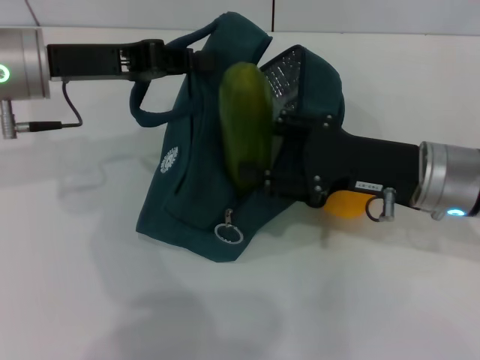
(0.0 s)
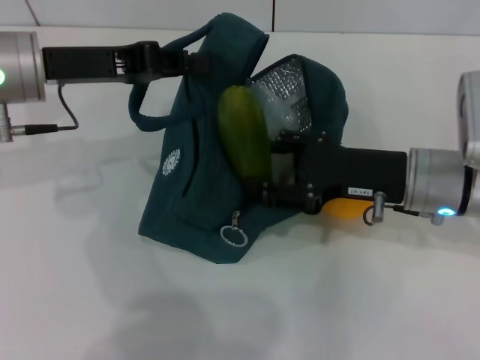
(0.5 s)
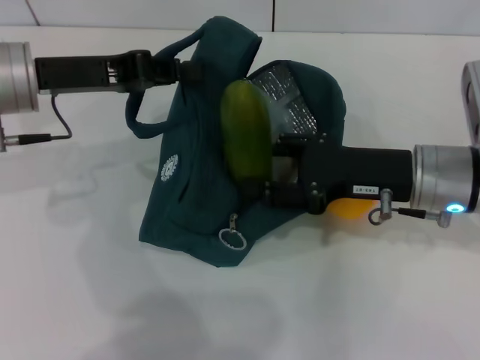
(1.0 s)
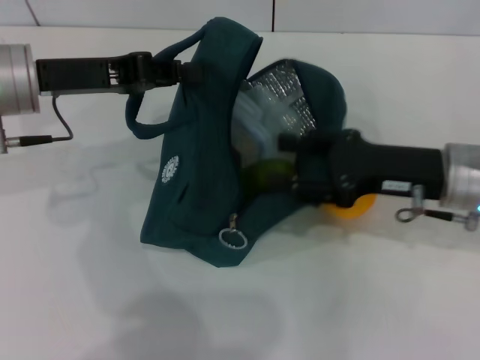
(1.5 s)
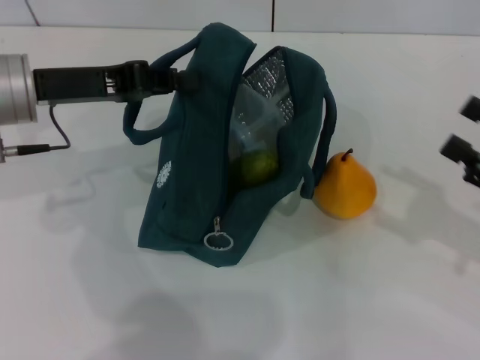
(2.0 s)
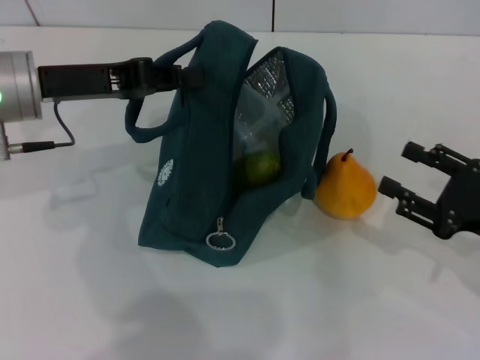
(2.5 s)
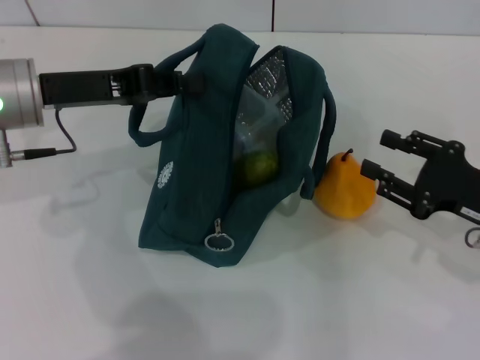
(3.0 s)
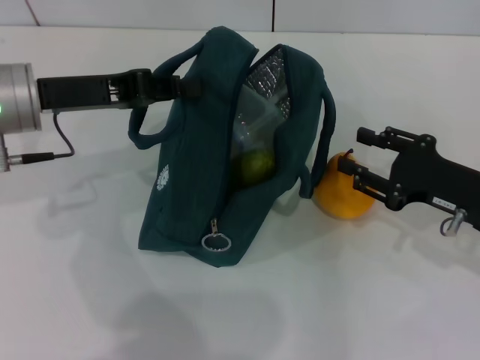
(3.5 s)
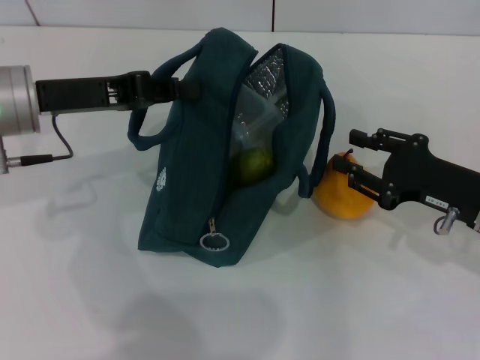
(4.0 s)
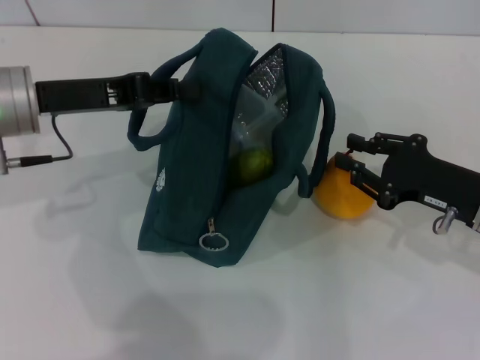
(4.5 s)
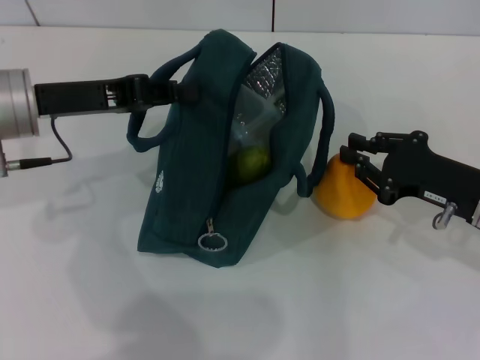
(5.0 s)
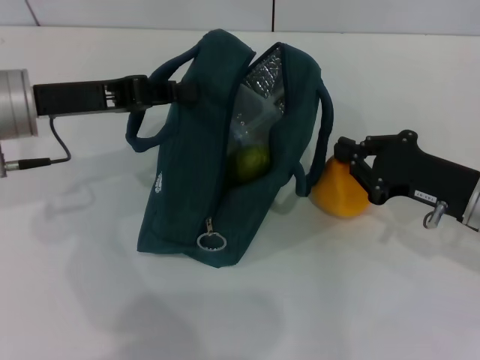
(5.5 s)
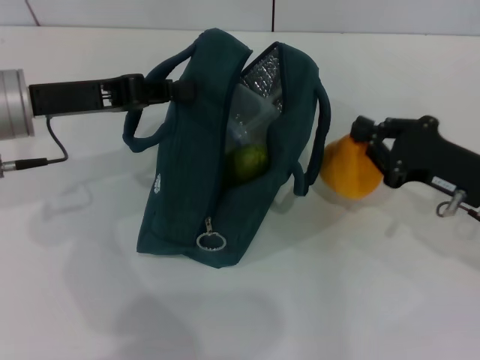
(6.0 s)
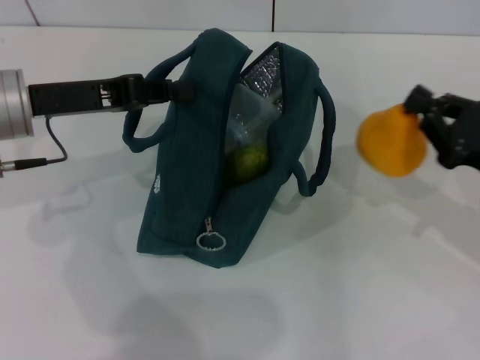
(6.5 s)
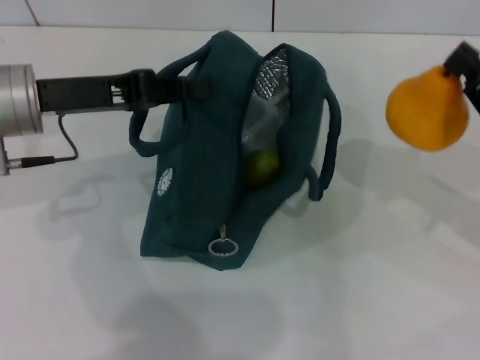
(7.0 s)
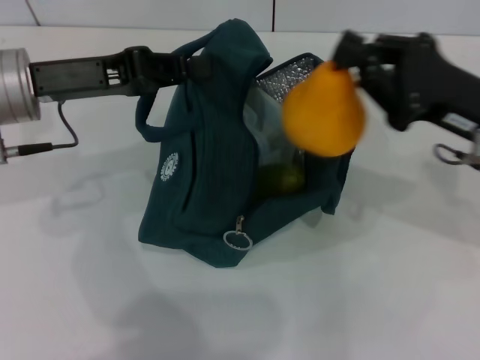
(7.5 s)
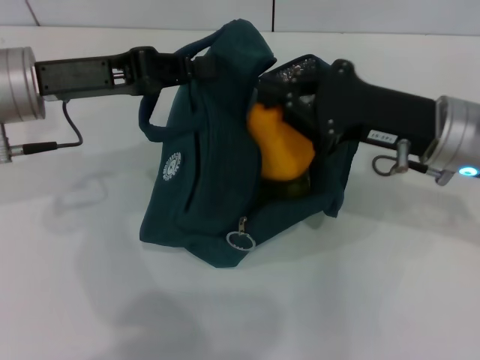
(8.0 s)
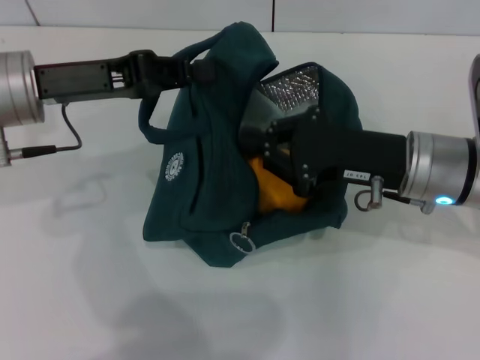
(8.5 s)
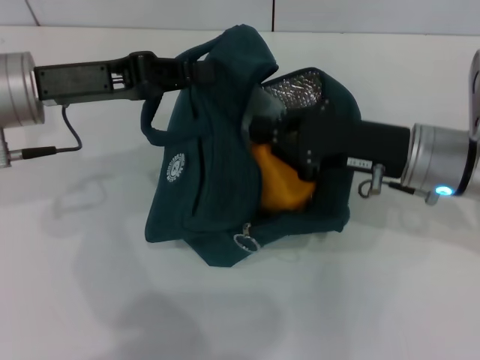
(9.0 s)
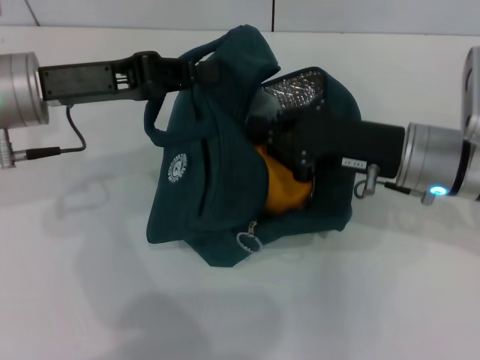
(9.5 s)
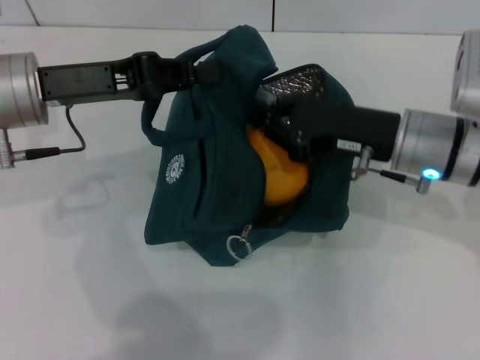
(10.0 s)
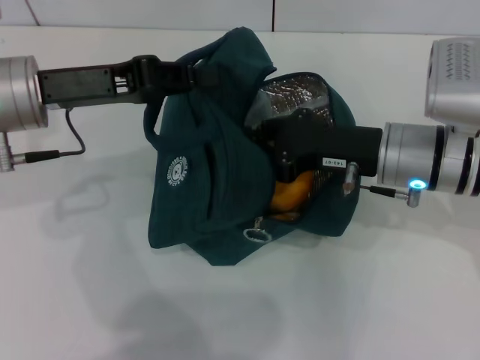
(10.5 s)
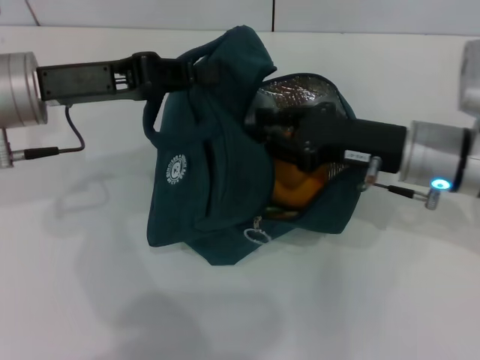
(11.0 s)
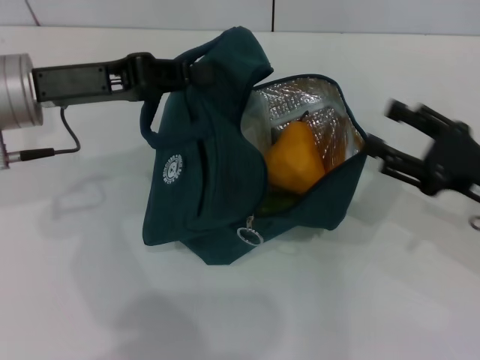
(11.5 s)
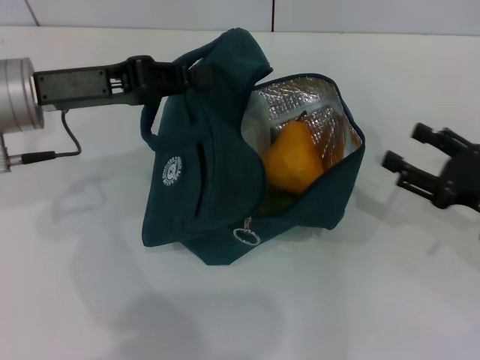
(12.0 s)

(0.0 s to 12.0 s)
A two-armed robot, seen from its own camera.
Step, 2.0 s - 5.0 s: Grab the pear with your right hand.
0.0 s - 2.0 s: The right gripper shifts roughly 15 cm to the right and backward.
2.0 s - 4.0 s: The right gripper heads to the left, covering approximately 10 cm.
4.0 s - 6.0 s: The right gripper closes.
6.0 s - 8.0 s: The right gripper goes approximately 10 cm to the left and upward.
8.0 s - 10.0 s: The grippers stay close to where they were, moving slightly.
10.0 s - 12.0 s: The right gripper heads to the right, backward and downward, covering some 15 cm, and opens.

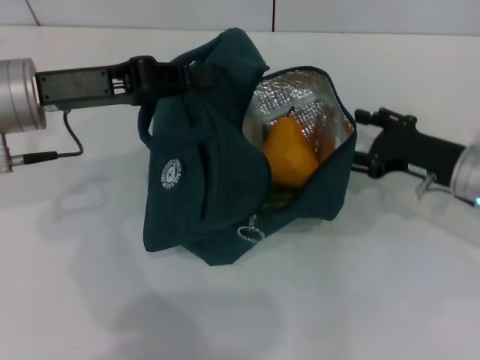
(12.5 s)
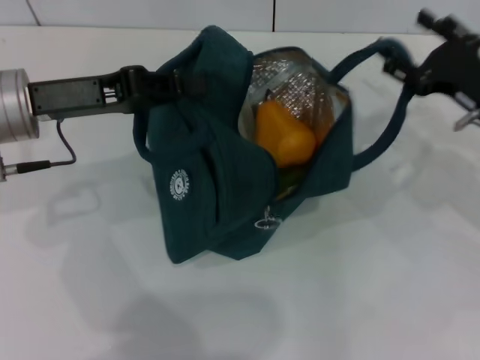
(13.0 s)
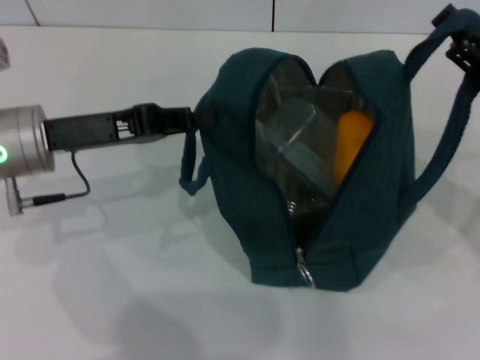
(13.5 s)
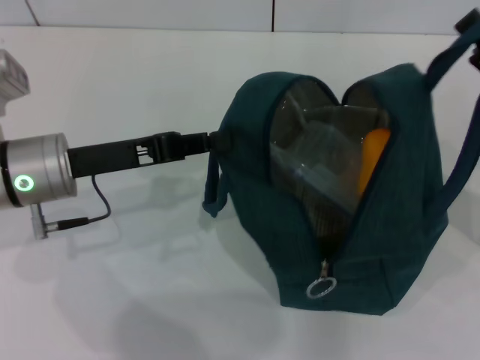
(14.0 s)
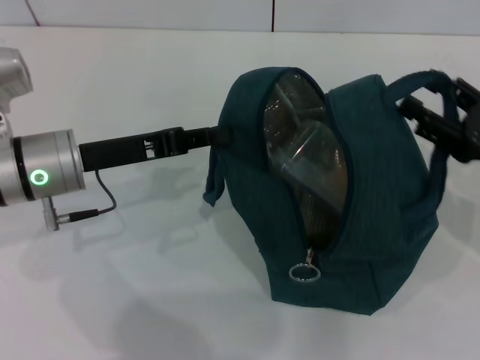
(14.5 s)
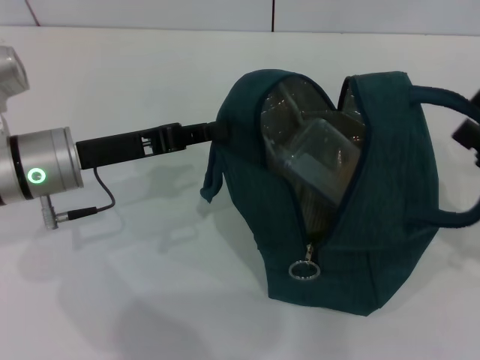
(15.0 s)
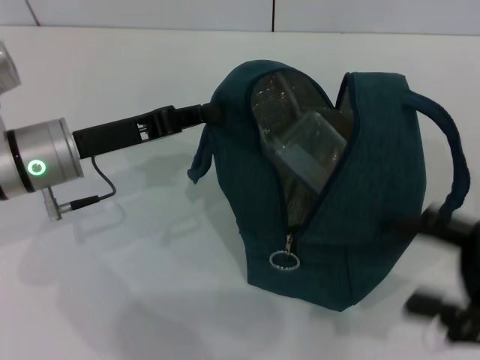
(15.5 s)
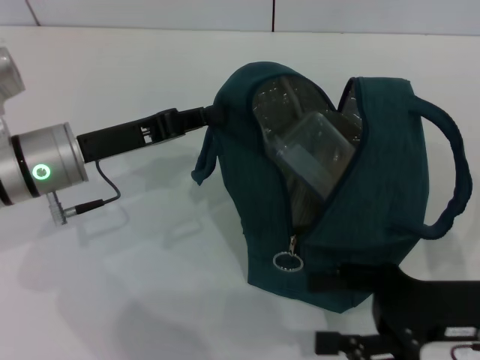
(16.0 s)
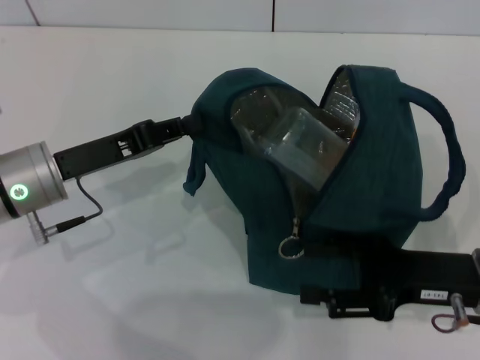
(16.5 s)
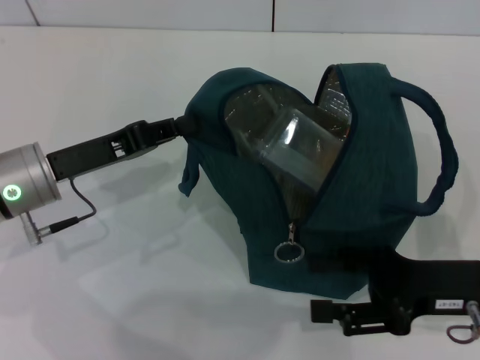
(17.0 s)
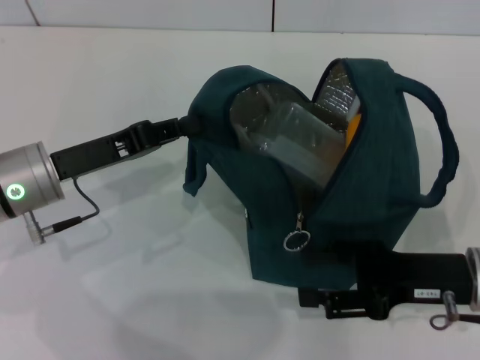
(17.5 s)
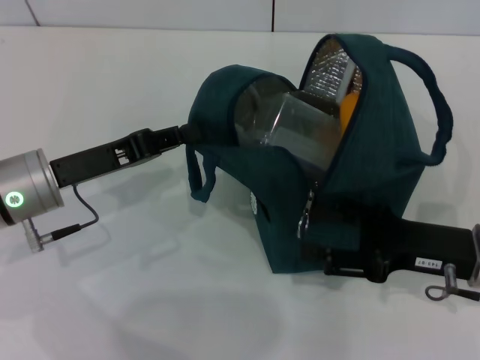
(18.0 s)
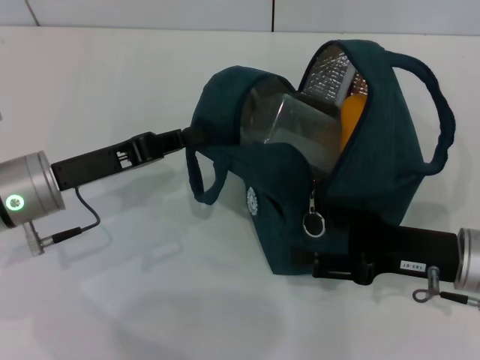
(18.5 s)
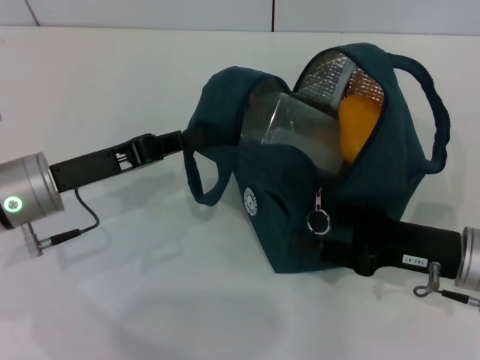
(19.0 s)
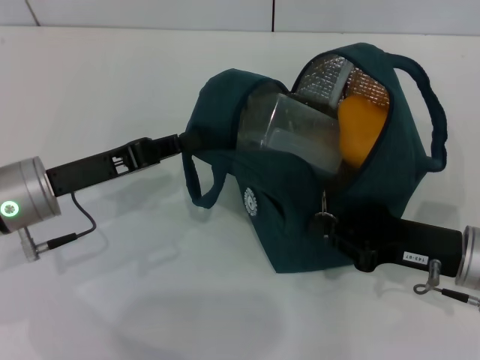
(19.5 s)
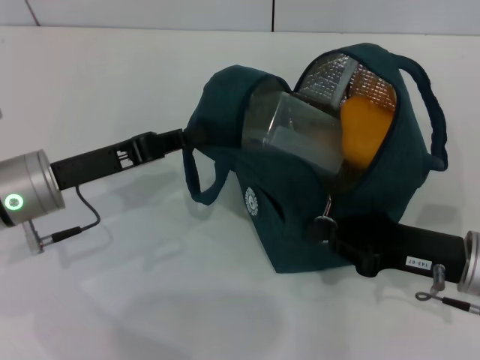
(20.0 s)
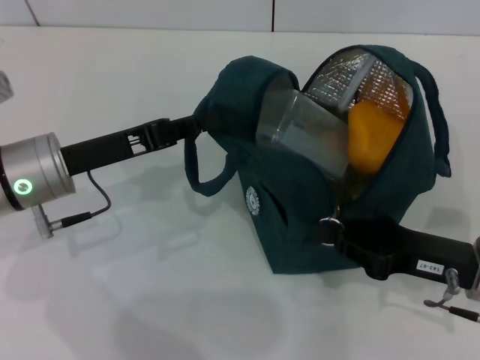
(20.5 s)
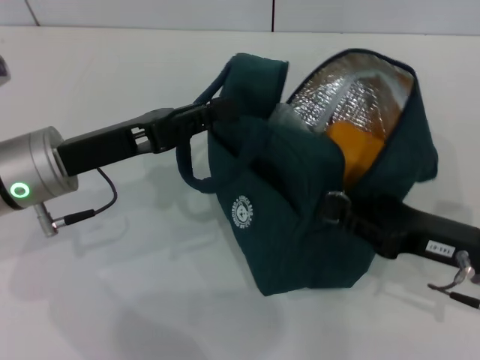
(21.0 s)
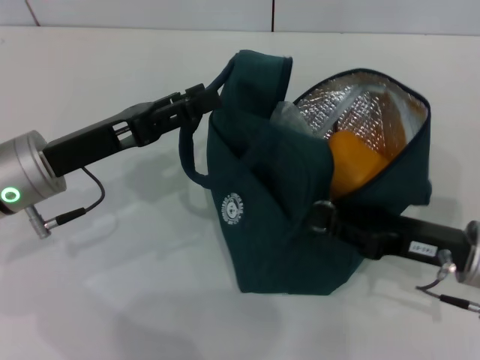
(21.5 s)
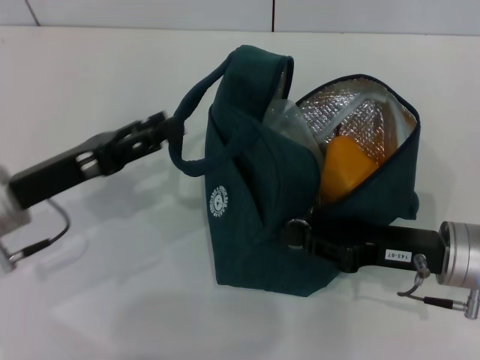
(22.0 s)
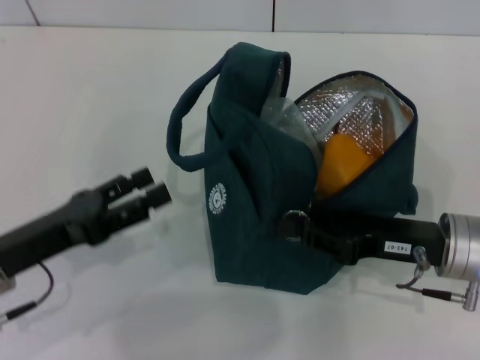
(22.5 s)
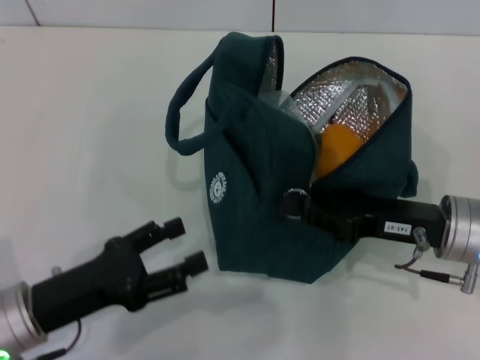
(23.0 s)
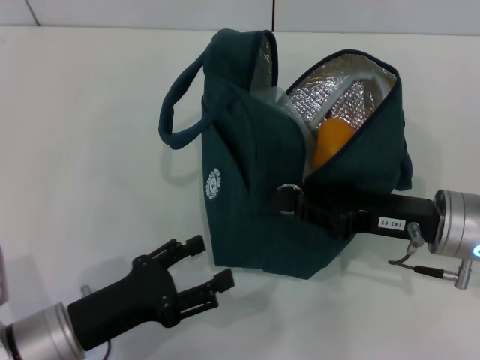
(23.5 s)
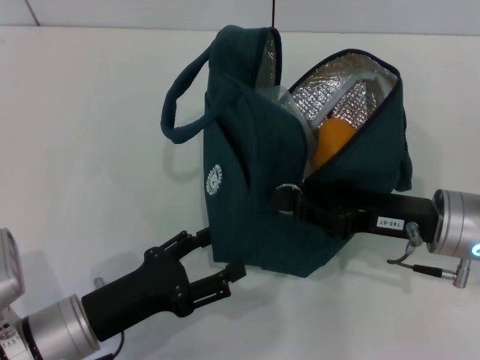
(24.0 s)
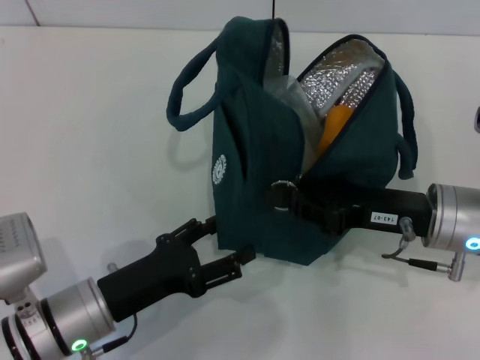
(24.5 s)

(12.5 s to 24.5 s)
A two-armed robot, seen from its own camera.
Step, 12.5 s - 15.0 s: Hold the lunch bag with your right hand.
Step, 15.5 s - 21.5 s: Hold the lunch bag with your left hand.
12.5 s - 14.5 s: The right gripper travels to the right and backward by about 10 cm, while the left gripper moves downward, roughly 5 cm.
14.5 s - 16.5 s: The right gripper shifts approximately 5 cm to the left.
18.5 s - 20.5 s: The right gripper closes up.
20.5 s - 22.5 s: The left gripper travels backward by roughly 10 cm, and opens up.
22.5 s - 24.5 s: The left gripper goes roughly 10 cm to the right and downward.

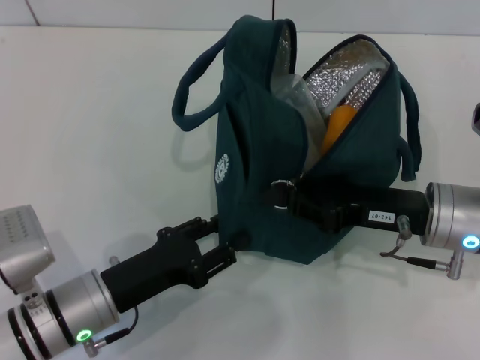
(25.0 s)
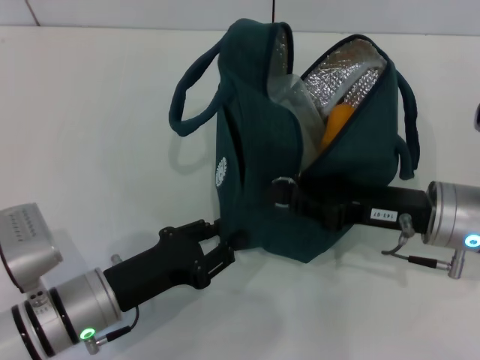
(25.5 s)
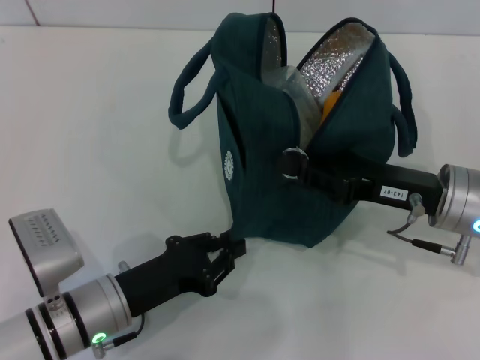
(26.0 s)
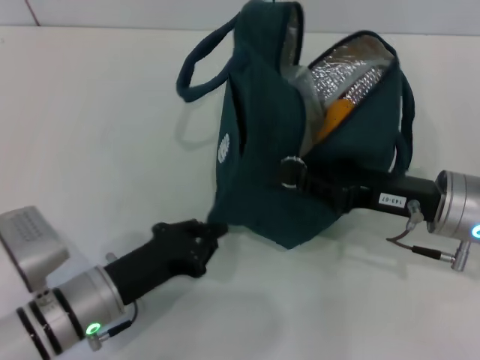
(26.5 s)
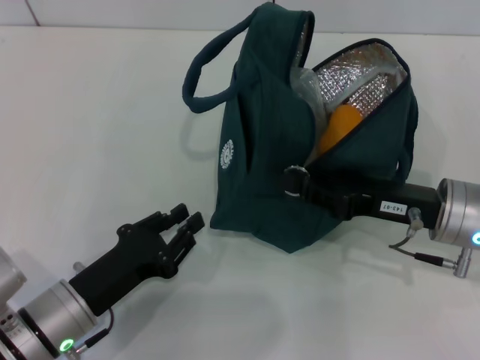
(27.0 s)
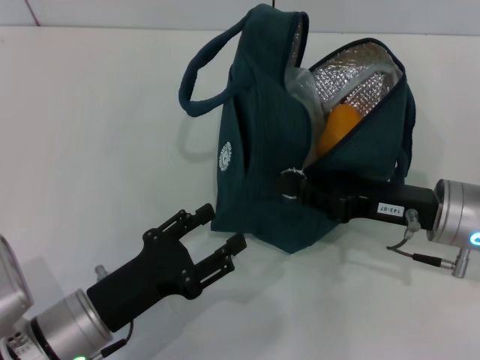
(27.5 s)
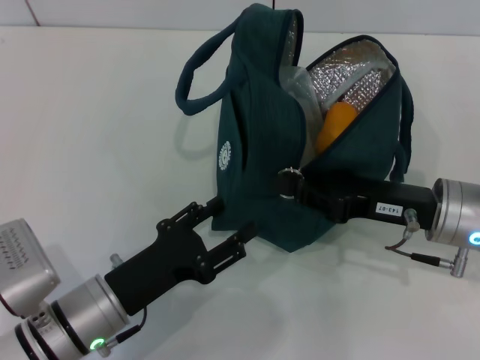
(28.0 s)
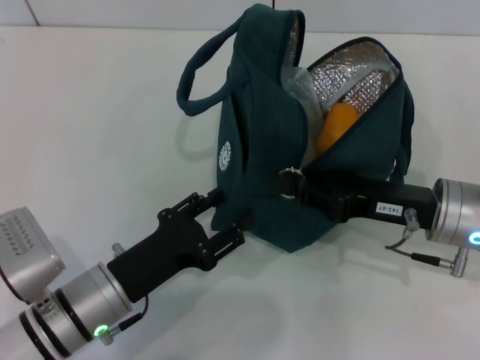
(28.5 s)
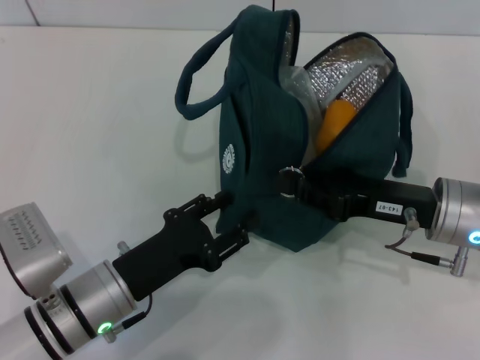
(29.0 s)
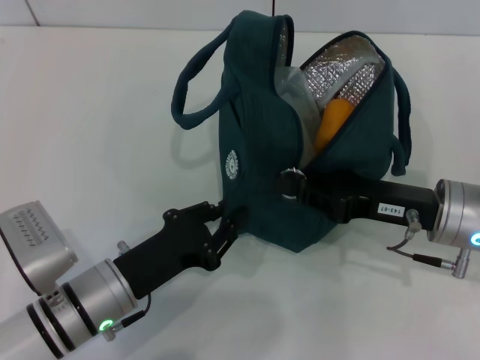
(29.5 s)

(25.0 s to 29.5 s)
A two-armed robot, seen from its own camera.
25.0 s - 27.0 s: The left gripper closes its fingers.
27.0 s - 29.5 s: The left gripper opens, then closes once more.
